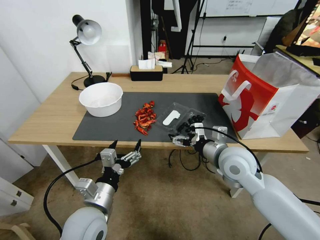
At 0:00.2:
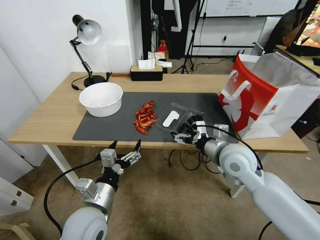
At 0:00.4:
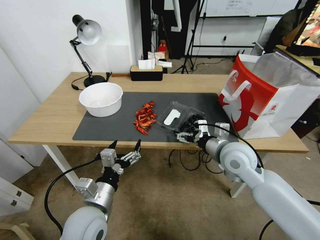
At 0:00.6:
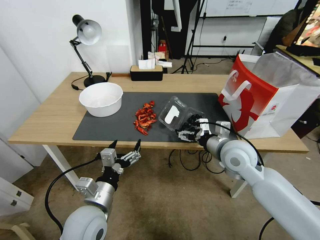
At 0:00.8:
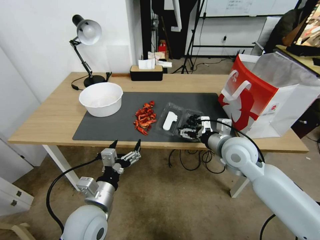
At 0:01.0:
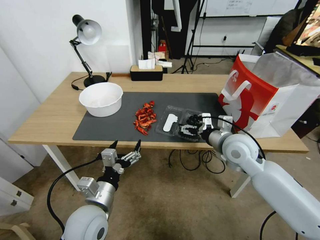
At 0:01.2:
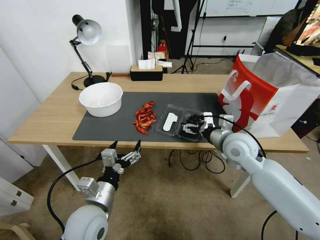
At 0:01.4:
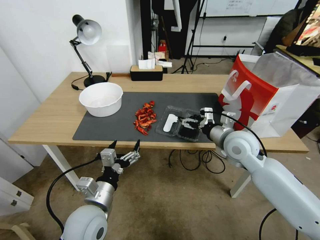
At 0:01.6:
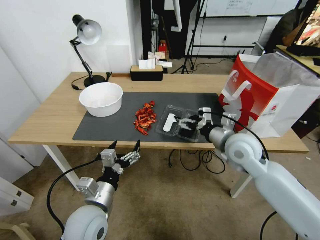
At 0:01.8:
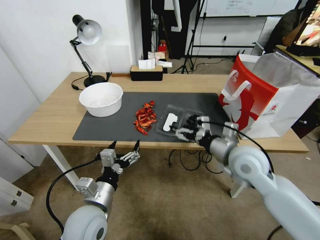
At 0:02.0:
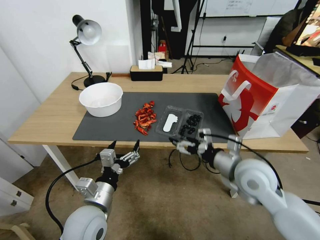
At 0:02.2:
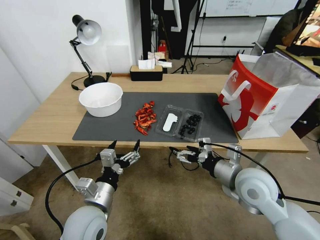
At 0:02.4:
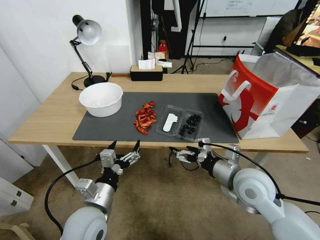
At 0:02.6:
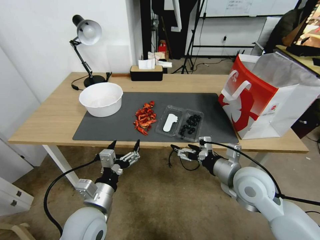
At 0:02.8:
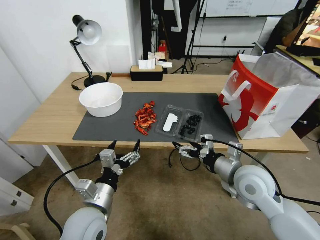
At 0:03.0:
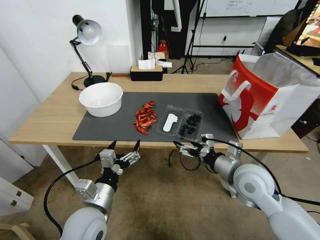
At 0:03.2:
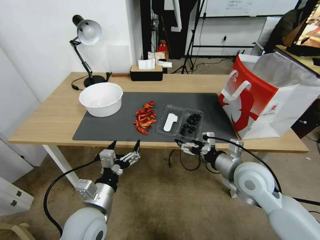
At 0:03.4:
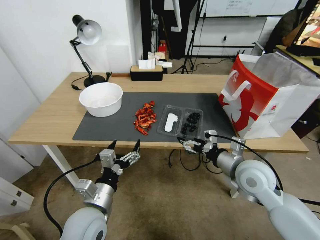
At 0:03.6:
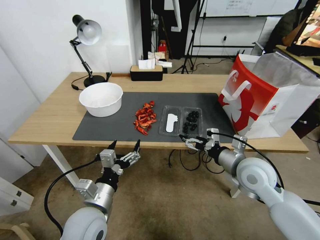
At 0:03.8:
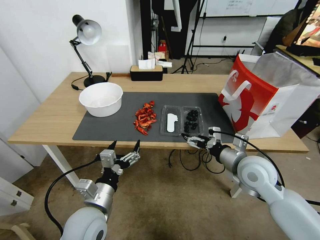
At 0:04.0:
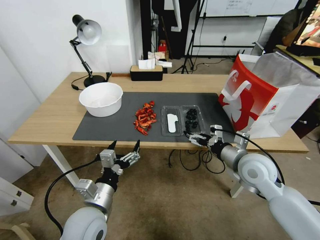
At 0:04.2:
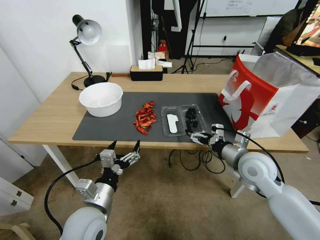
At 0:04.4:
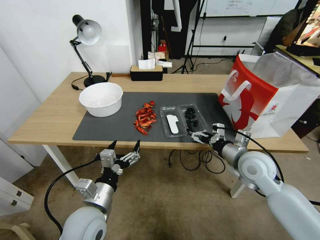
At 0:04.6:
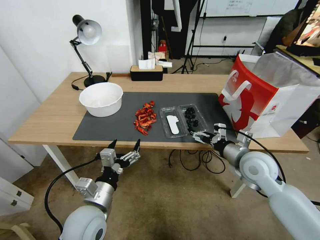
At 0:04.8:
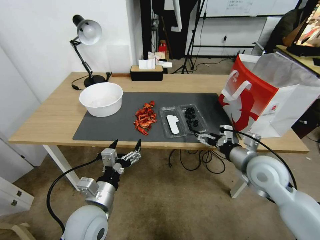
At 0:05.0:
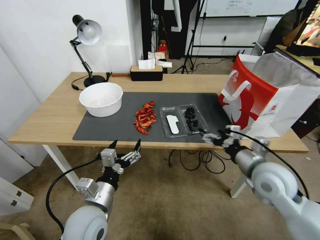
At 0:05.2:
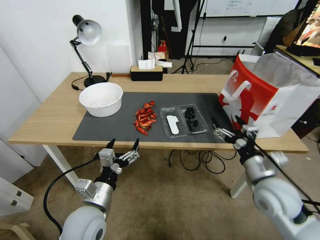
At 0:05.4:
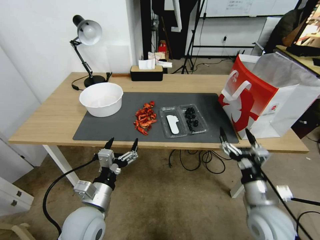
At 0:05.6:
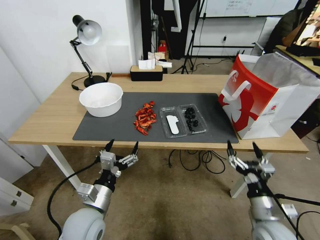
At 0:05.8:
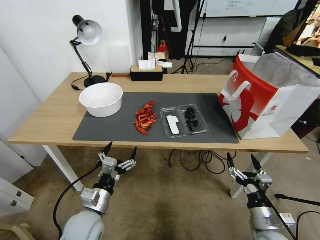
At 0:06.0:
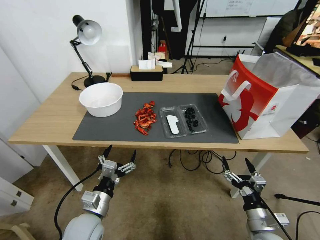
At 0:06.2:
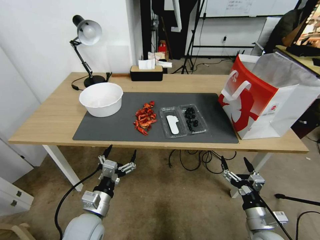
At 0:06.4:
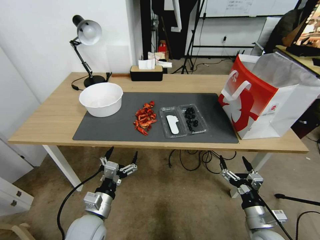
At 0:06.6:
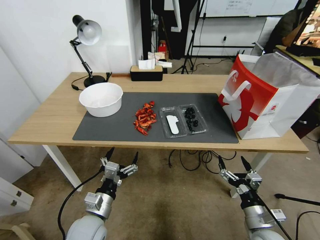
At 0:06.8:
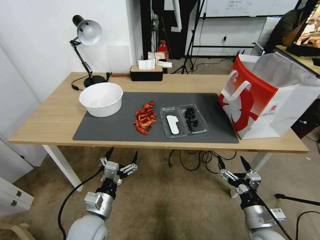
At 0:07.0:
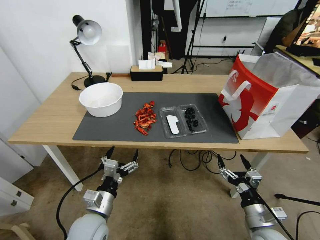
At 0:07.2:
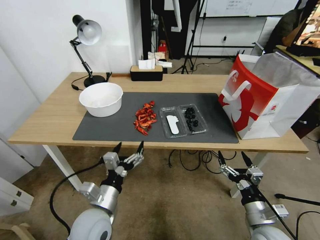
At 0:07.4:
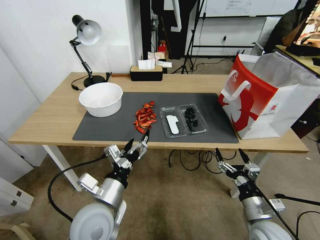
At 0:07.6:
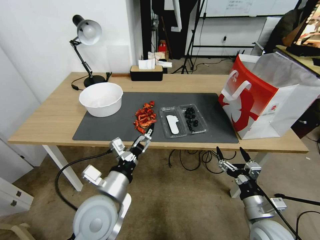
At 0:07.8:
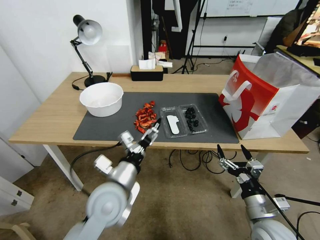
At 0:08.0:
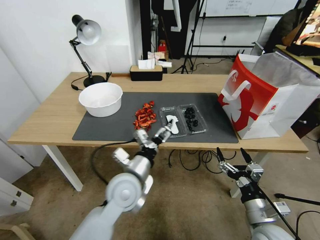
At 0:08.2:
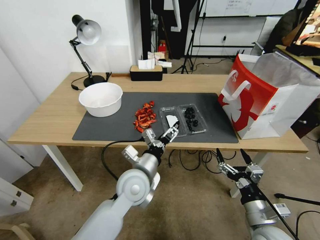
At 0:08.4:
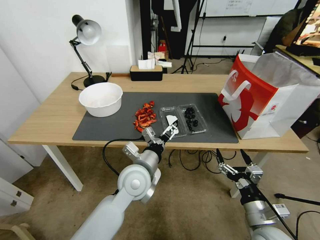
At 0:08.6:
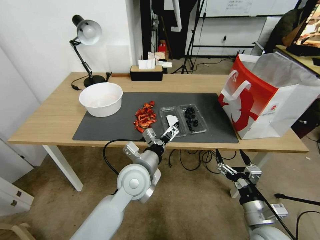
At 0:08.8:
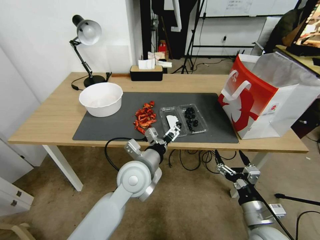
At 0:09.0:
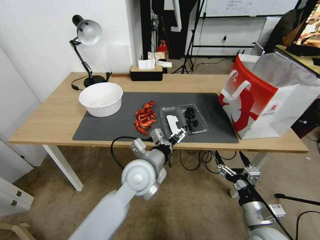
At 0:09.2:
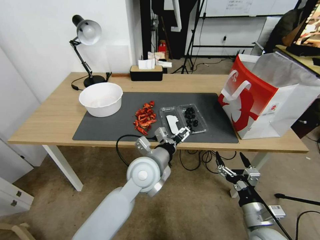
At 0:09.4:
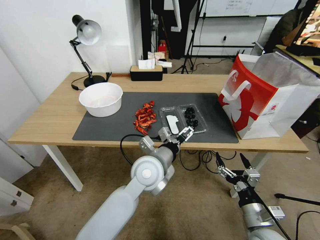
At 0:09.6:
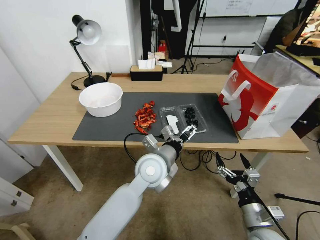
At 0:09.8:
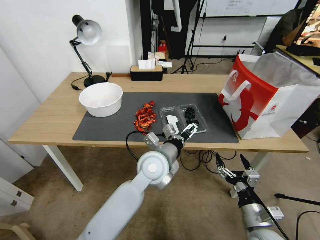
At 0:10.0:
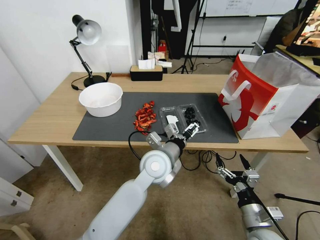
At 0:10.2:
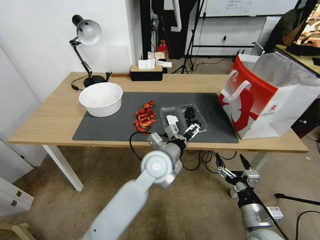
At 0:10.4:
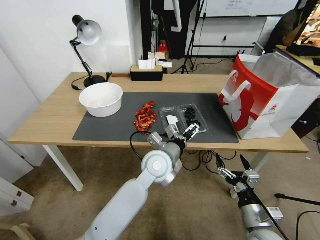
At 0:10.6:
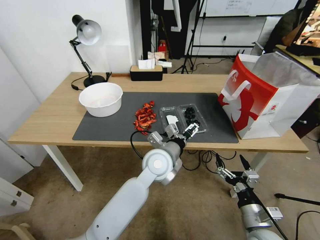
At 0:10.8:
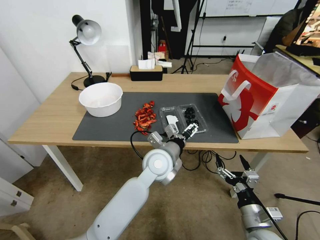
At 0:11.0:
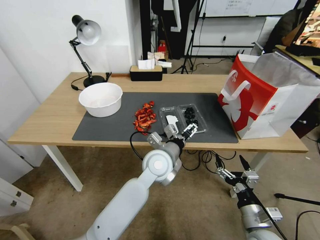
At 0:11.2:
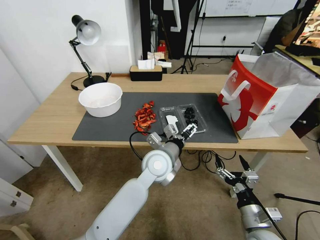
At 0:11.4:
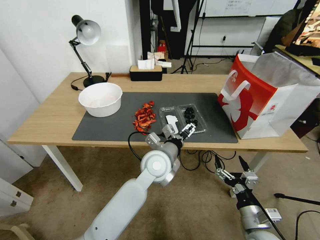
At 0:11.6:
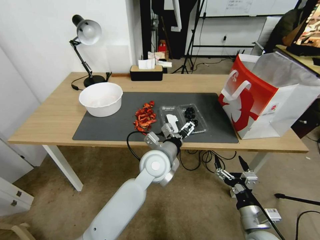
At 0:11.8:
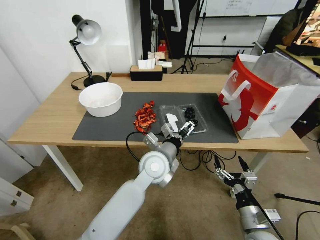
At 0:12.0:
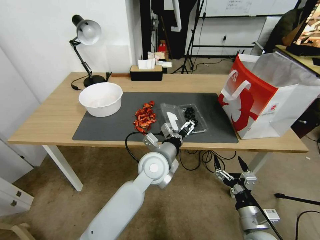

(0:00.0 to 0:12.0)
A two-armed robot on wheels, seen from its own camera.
0:01.6 - 0:03.0: The right gripper travels backward by some 5 cm.
0:03.0 - 0:04.4: The right gripper shifts by some 5 cm.
0:04.4 - 0:06.0: The right gripper goes approximately 25 cm backward and downward, while the left gripper travels downward by some 5 cm.
0:06.0 - 0:07.6: The right gripper moves upward, approximately 5 cm. The left gripper moves upward and to the right, some 15 cm.
0:07.6 - 0:09.0: The left gripper shifts roughly 15 cm forward and to the right.
0:09.0 - 0:10.4: The left gripper travels to the right by about 5 cm.
0:10.4 - 0:12.0: There are only small adjustments of the grippers.

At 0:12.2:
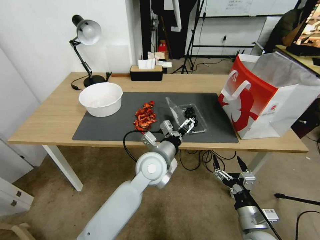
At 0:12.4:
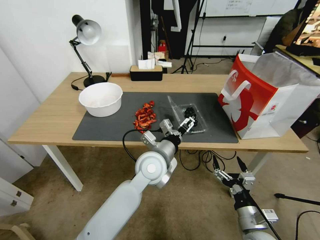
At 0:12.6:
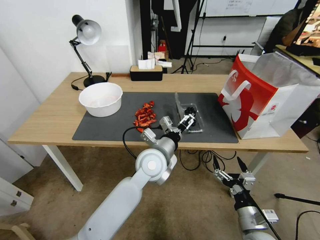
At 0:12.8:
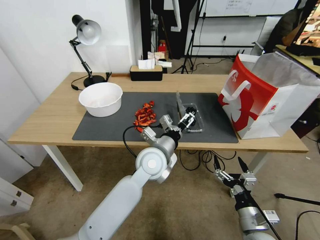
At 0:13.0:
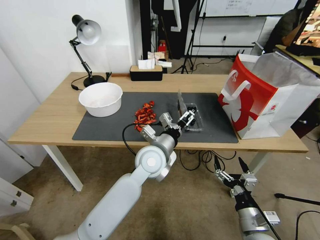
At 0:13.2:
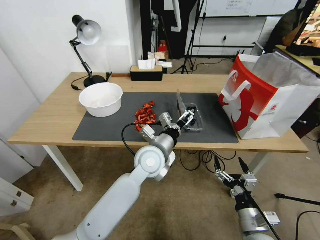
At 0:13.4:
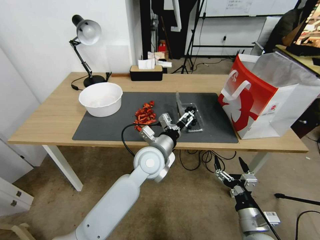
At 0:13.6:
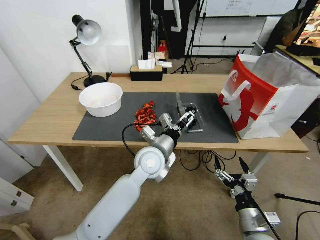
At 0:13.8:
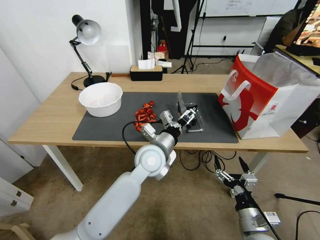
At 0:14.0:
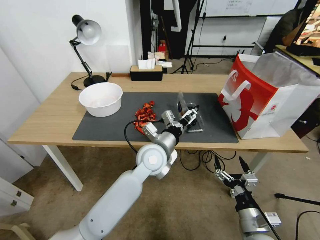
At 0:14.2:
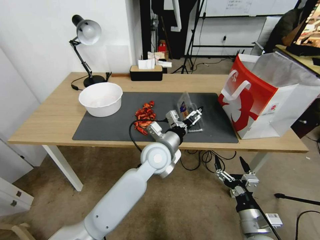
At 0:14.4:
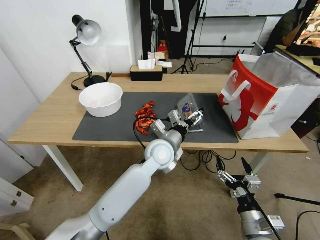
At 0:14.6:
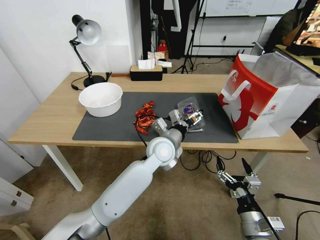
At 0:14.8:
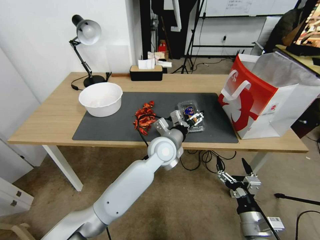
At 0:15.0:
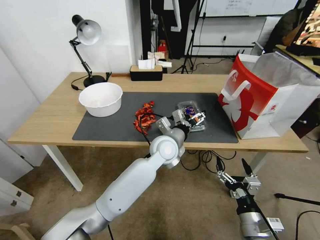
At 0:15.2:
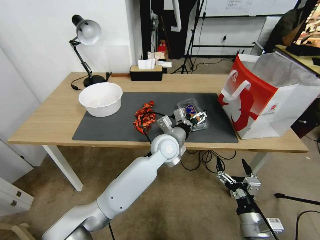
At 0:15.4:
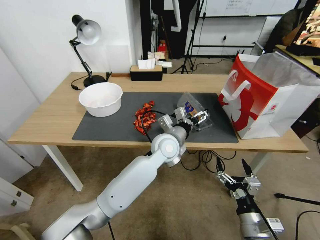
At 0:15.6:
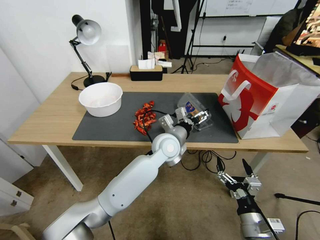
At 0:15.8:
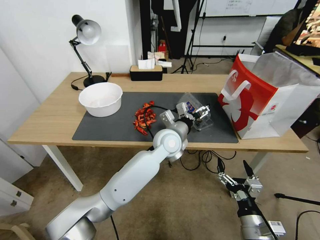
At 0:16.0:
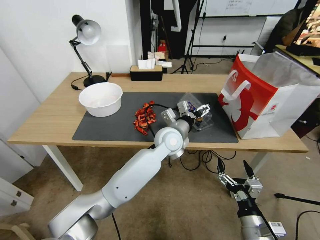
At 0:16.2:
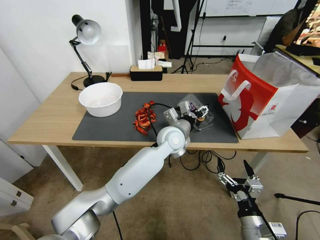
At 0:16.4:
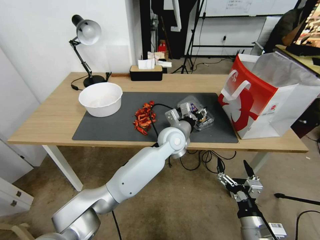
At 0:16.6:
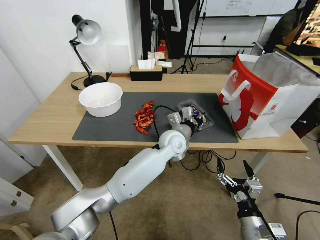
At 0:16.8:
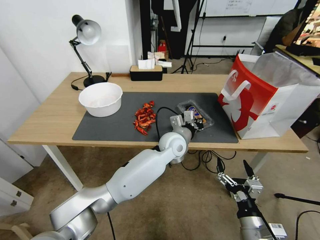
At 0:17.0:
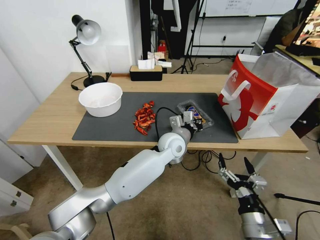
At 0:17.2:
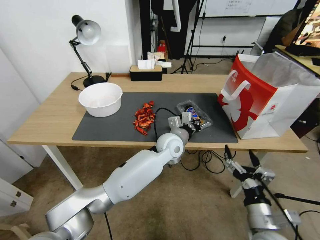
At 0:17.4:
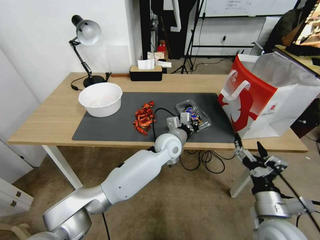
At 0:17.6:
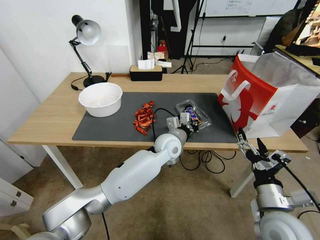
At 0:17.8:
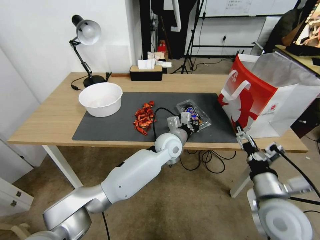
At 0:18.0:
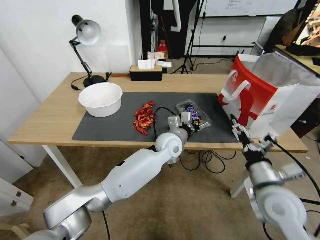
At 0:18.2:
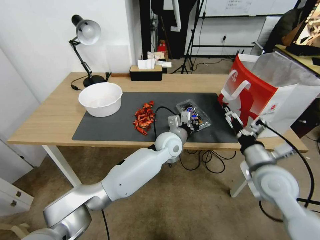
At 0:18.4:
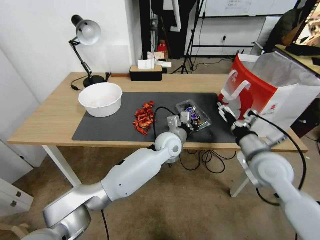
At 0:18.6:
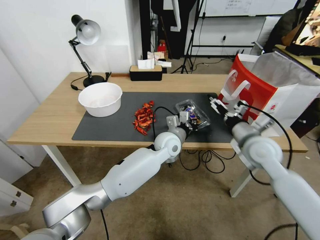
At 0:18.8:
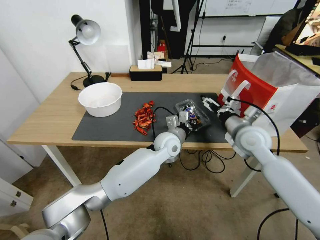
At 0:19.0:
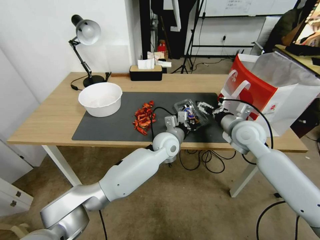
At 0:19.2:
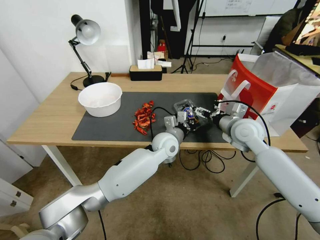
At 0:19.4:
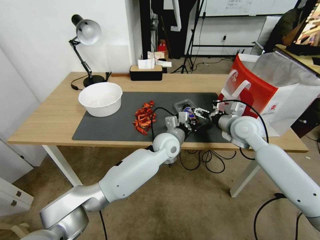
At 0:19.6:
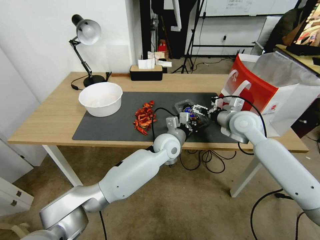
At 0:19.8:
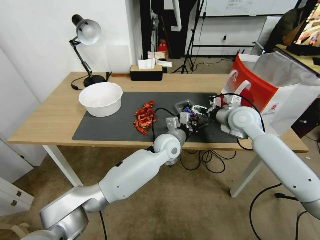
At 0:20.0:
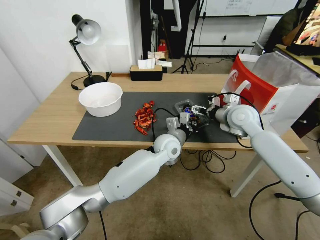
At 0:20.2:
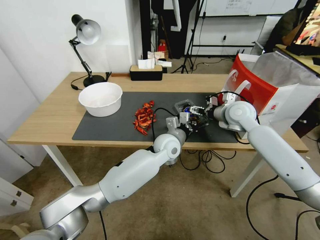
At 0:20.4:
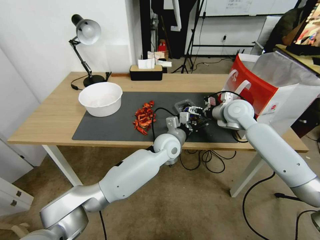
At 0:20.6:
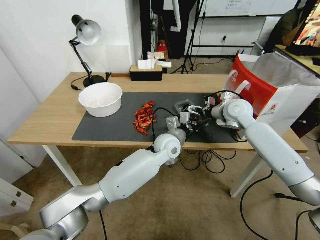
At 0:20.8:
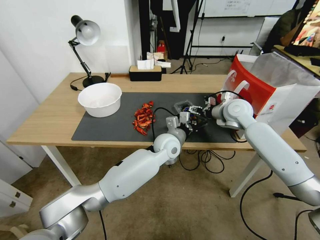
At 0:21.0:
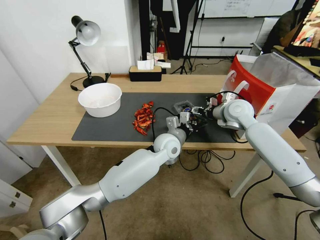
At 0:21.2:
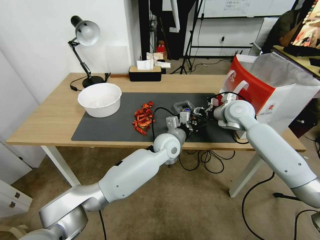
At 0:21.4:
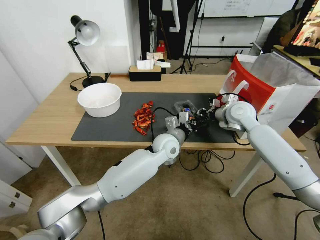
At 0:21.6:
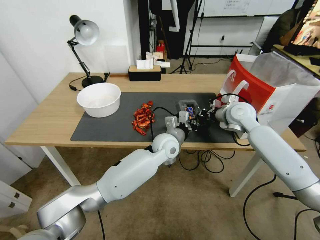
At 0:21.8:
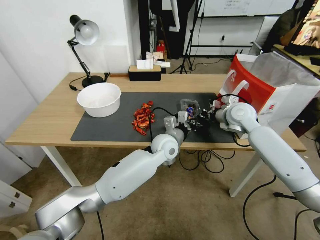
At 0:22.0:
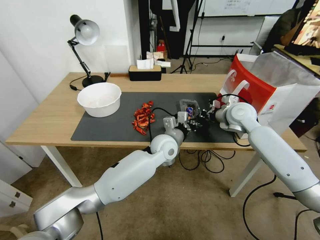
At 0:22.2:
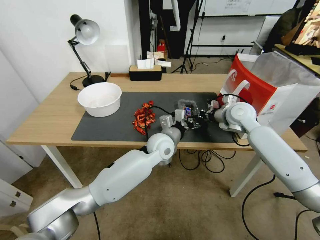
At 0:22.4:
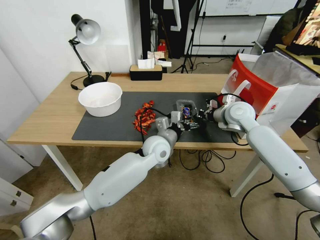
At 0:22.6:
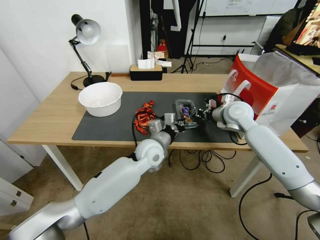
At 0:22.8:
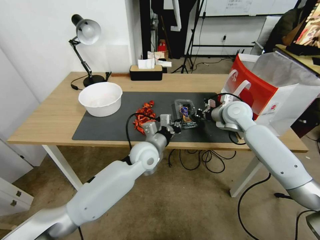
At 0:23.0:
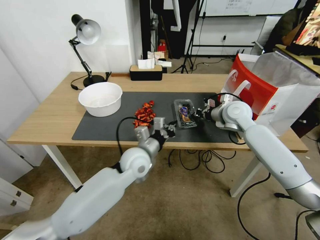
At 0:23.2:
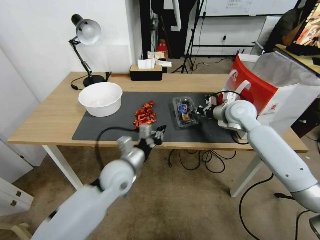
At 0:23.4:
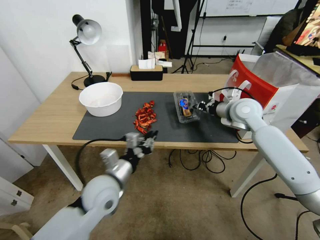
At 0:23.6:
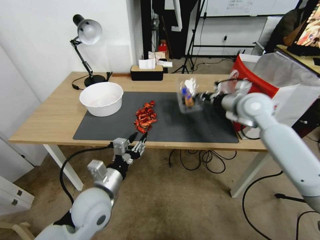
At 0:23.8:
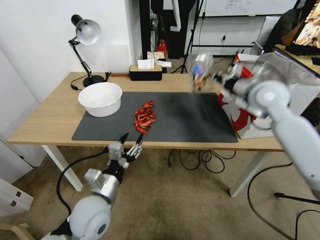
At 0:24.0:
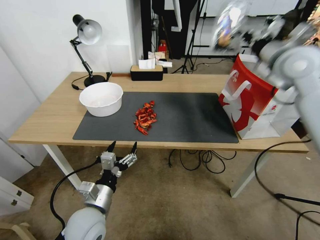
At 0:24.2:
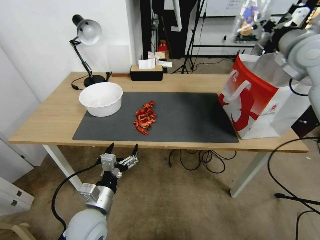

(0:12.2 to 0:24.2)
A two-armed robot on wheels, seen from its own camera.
0:12.2 - 0:13.8: The grippers stay close to where they were, moving slightly.
0:13.8 - 0:15.2: The left gripper is displaced forward by some 5 cm.
0:15.2 - 0:16.6: The left gripper closes its fingers.
0:16.6 - 0:18.2: The right gripper is displaced forward and upward by some 20 cm.
0:18.2 - 0:19.8: The right gripper heads forward, covering some 20 cm.
0:19.8 - 0:21.2: The right gripper closes its fingers.
0:21.2 - 0:22.6: The right gripper closes. Meanwhile the left gripper shifts approximately 5 cm to the left.
0:22.6 - 0:24.2: The right gripper heads upward and to the right, covering roughly 25 cm. The left gripper moves backward and to the left, roughly 25 cm, and opens its fingers.
